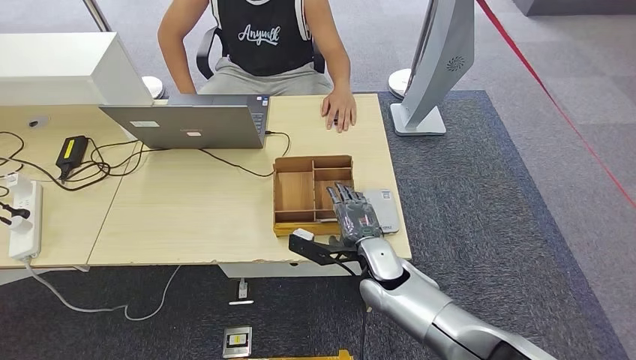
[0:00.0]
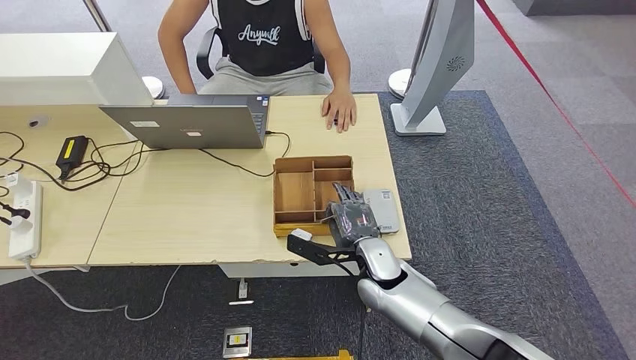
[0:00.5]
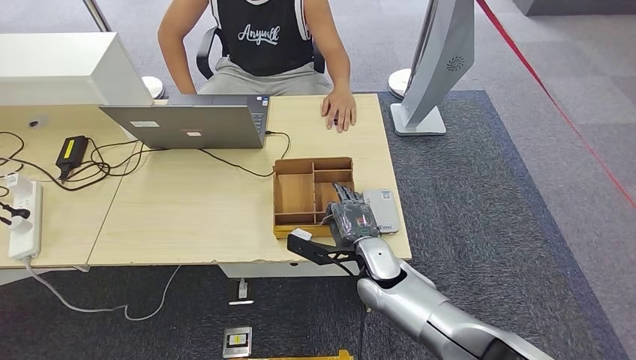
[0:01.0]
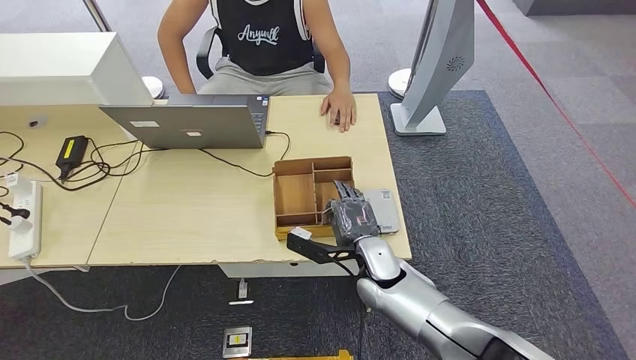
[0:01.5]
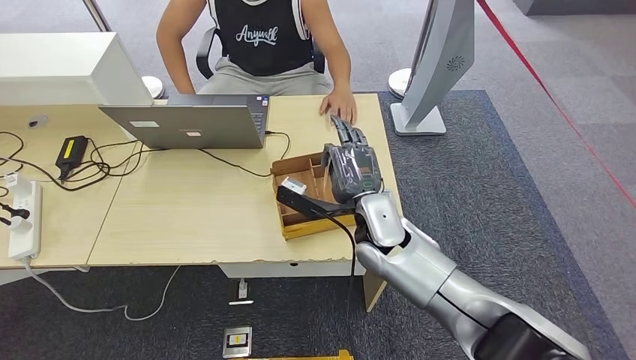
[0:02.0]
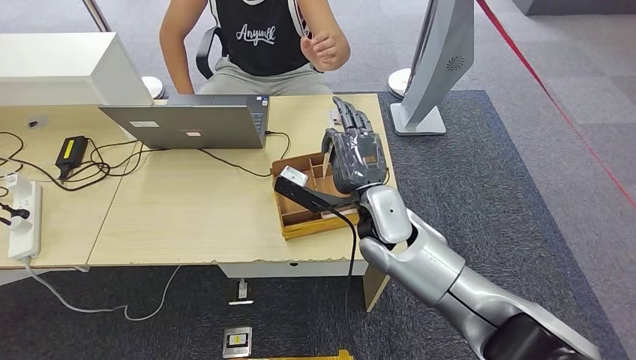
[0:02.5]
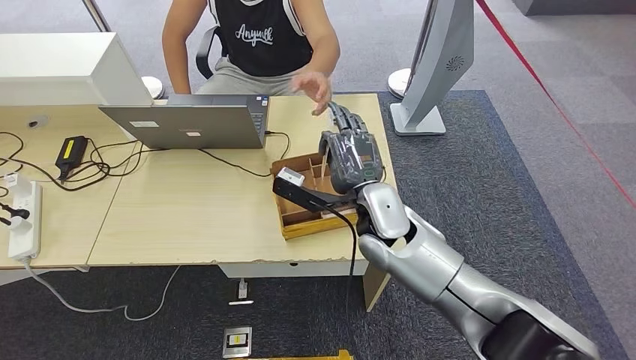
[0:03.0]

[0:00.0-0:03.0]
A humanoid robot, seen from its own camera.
Step, 0:01.5 to 0:03.0: Hand the room key to the person.
0:00.0 to 0:01.5: Both hands stay about where they are.
0:01.5 to 0:03.0: The right hand goes roughly 15 cm upward.
